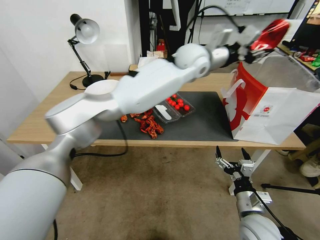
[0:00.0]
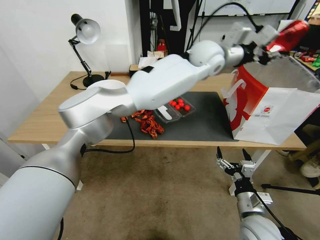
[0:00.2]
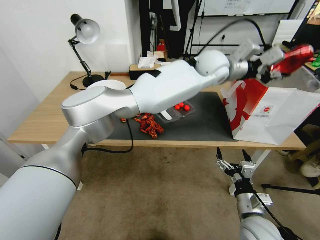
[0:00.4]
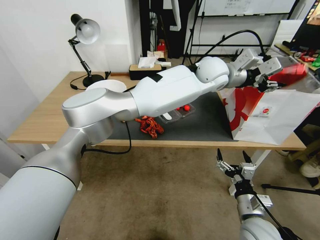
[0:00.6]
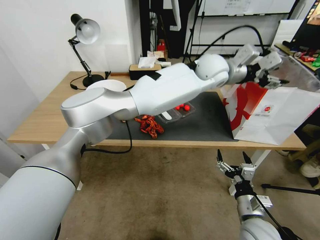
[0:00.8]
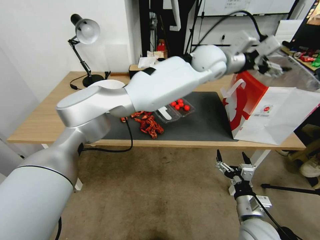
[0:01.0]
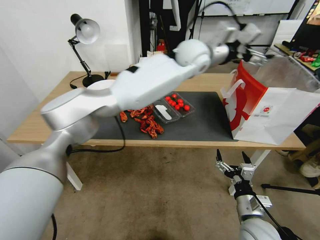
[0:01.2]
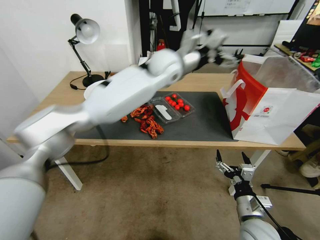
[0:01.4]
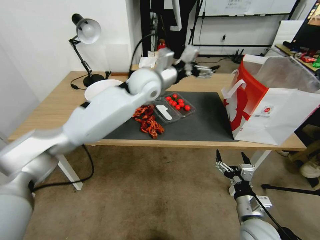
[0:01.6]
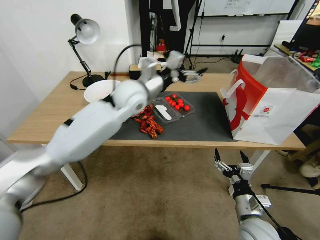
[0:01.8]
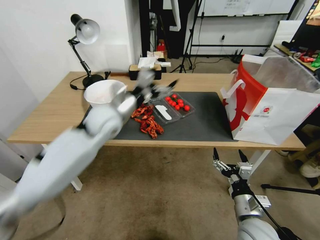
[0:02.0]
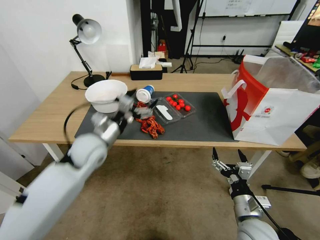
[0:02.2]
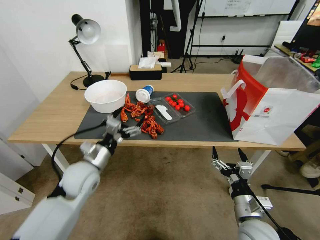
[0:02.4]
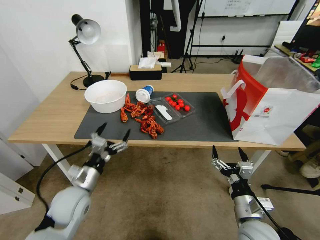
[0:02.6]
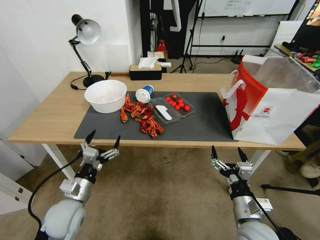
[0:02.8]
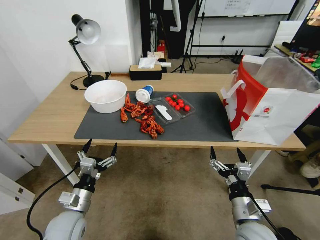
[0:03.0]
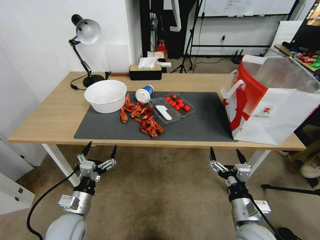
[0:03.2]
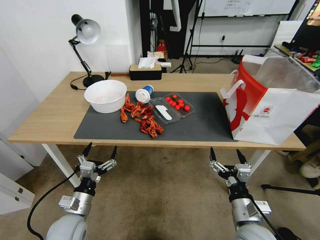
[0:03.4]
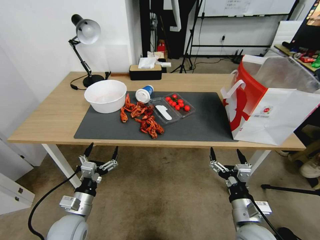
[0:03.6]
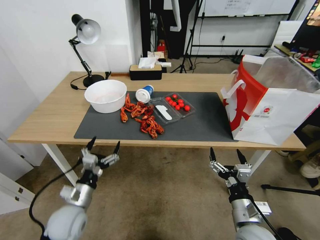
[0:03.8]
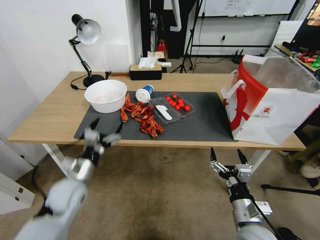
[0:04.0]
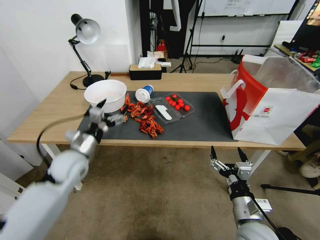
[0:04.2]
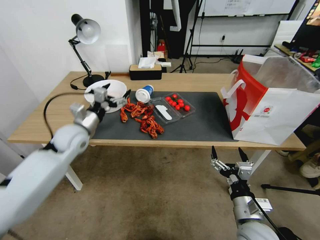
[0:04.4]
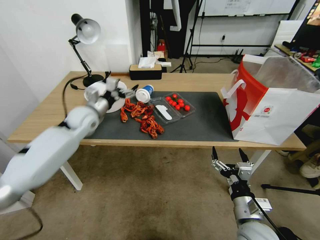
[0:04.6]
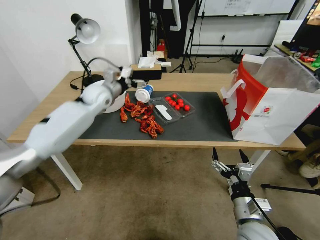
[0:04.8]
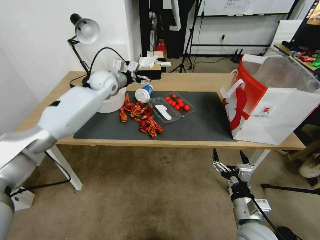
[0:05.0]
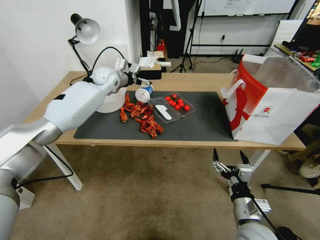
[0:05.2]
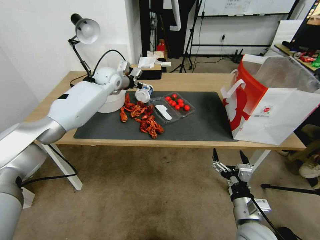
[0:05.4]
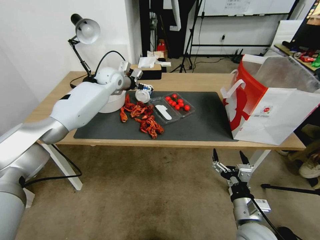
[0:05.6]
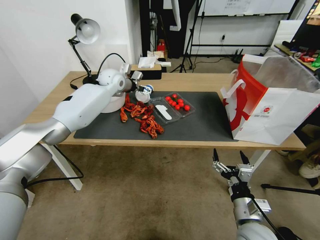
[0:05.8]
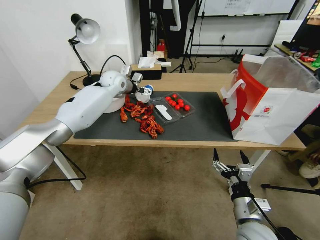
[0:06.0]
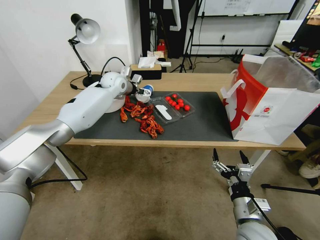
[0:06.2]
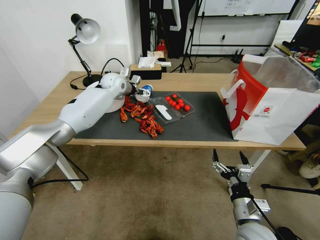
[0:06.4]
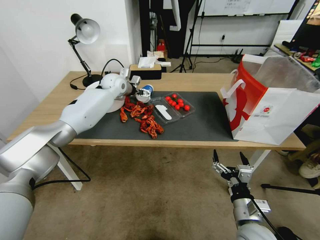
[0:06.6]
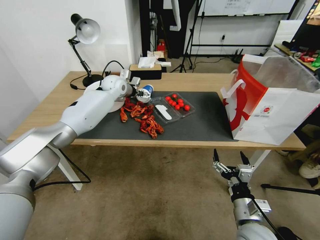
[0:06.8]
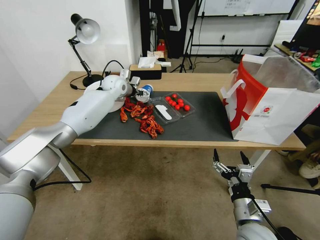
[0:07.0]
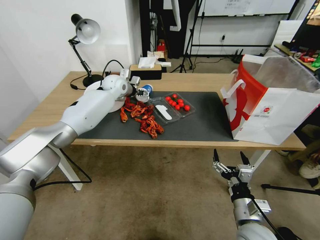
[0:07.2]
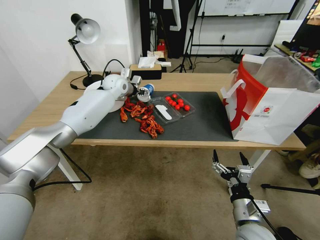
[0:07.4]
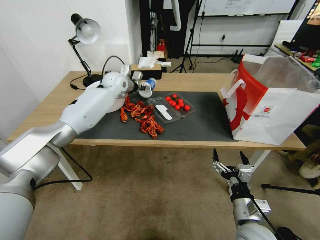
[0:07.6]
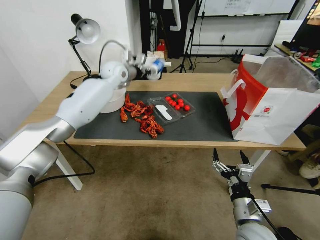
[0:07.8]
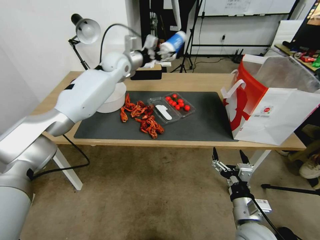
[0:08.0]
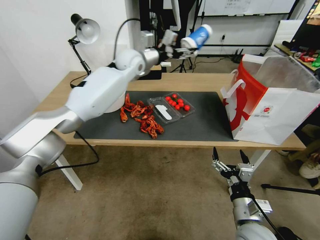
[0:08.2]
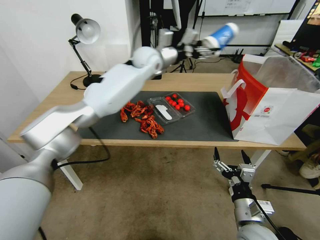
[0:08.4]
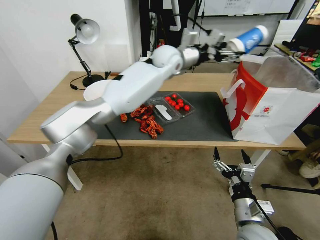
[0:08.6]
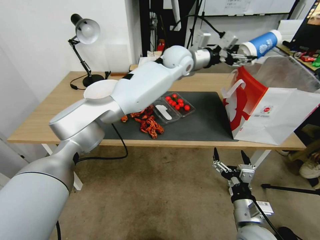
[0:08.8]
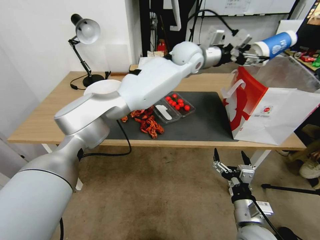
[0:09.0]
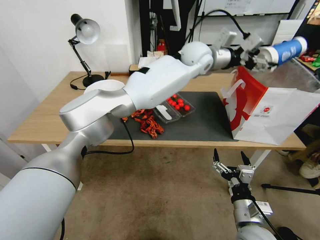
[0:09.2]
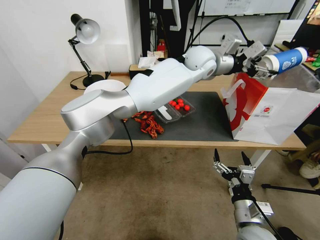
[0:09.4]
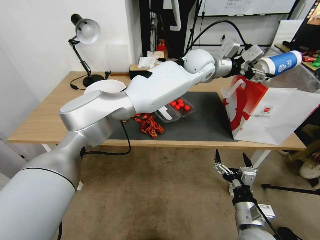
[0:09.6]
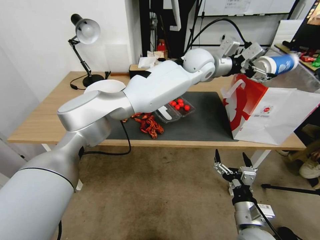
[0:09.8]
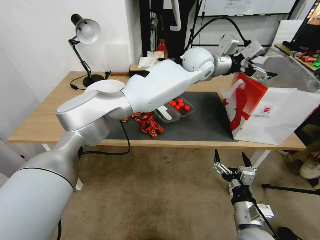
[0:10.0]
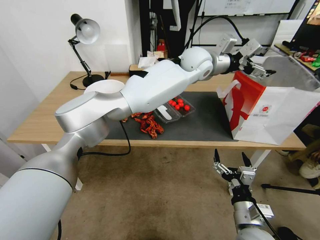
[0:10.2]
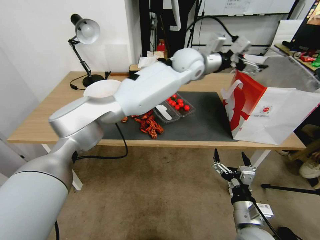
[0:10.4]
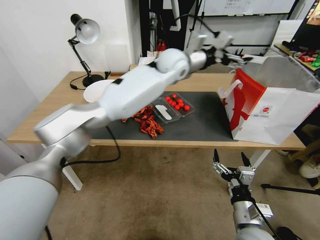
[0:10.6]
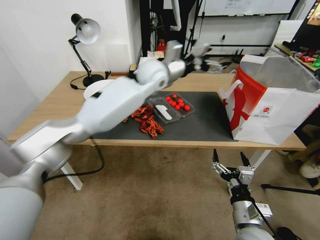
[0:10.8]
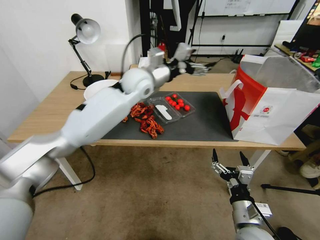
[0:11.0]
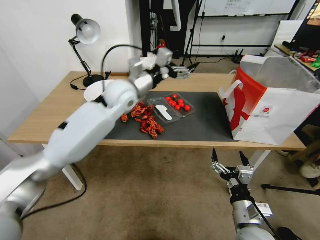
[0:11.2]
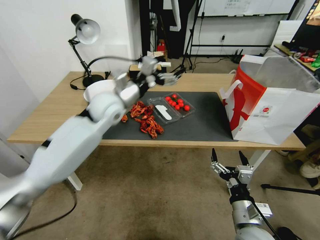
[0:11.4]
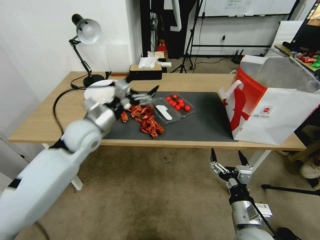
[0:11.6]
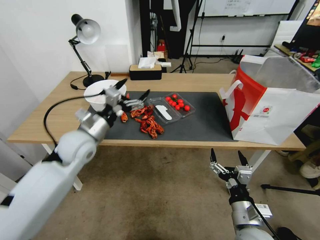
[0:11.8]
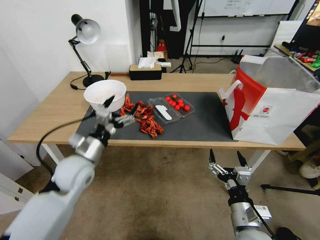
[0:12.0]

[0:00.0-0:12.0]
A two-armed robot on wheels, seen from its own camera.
0:00.0 to 0:01.6: The left gripper shifts some 15 cm to the left and downward, and opens.
0:01.6 to 0:03.0: The left gripper goes roughly 50 cm backward, downward and to the left.
0:03.0 to 0:04.4: The left gripper goes approximately 25 cm forward and upward.
0:04.4 to 0:06.0: The left gripper travels forward and to the right by approximately 25 cm.
0:06.0 to 0:07.6: The left gripper closes up.
0:07.6 to 0:09.0: The left gripper travels to the right and upward by about 30 cm.
0:09.0 to 0:10.4: The left gripper opens.
0:10.4 to 0:12.0: The left gripper heads to the left, backward and downward, covering about 50 cm.

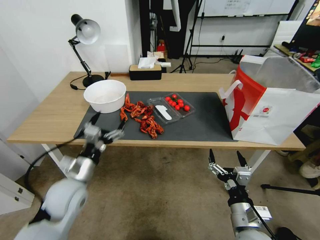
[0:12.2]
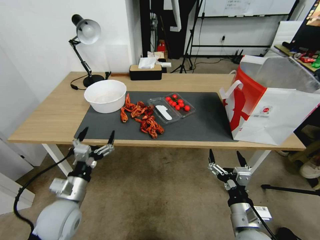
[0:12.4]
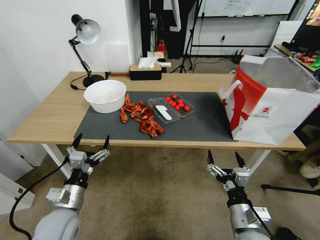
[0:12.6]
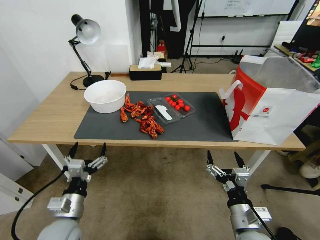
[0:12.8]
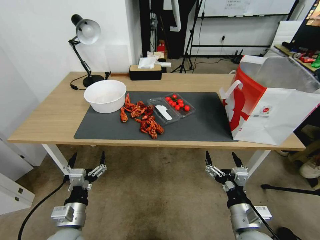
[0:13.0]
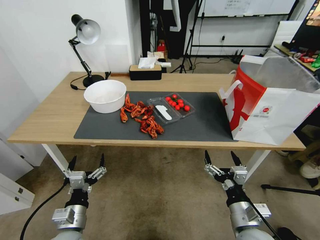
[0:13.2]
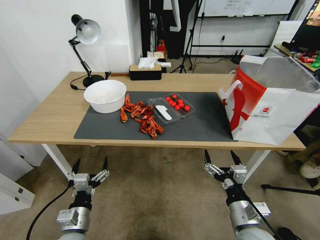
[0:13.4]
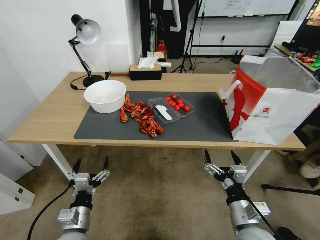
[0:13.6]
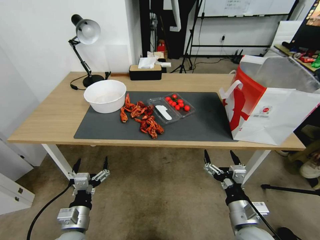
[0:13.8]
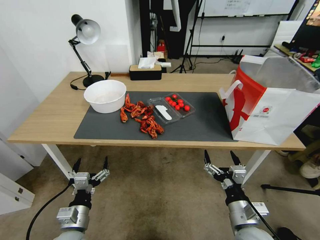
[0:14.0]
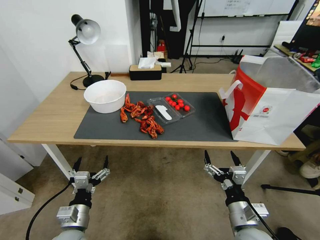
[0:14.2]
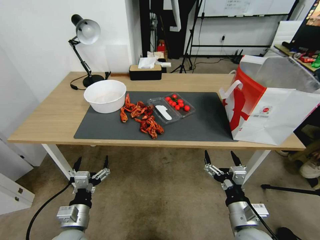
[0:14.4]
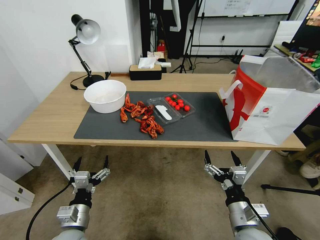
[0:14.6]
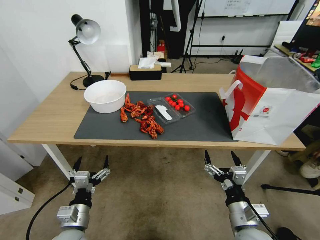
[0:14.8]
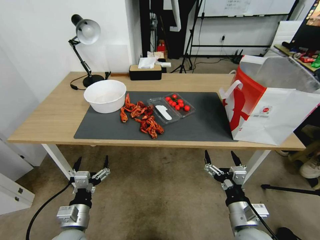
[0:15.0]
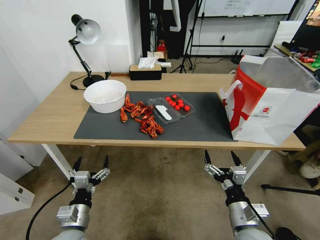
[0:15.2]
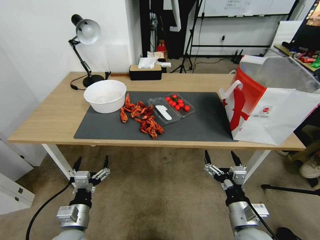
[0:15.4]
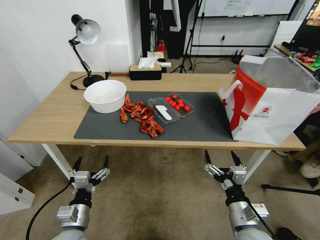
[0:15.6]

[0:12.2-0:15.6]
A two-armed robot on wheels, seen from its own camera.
0:12.2 to 0:13.8: The left gripper moves backward and downward, roughly 15 cm.
0:13.8 to 0:15.6: Both grippers stay about where they are.
